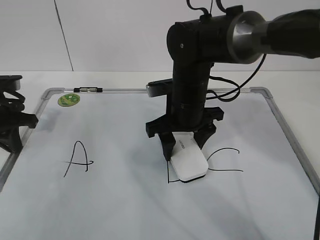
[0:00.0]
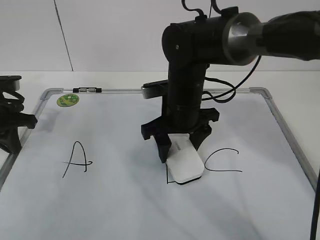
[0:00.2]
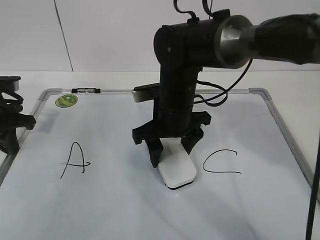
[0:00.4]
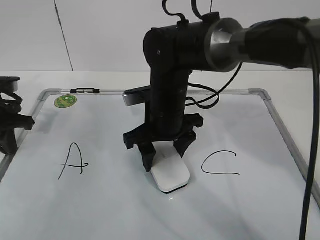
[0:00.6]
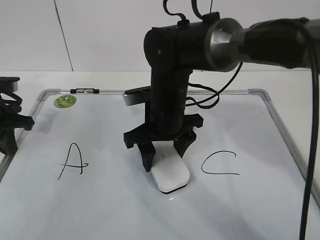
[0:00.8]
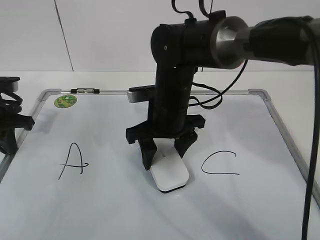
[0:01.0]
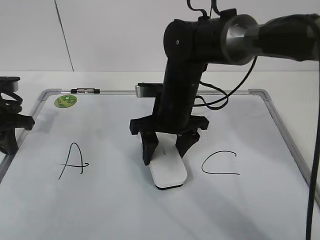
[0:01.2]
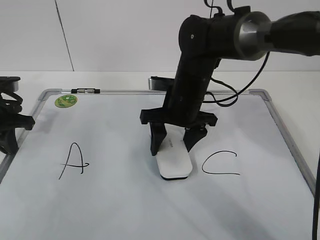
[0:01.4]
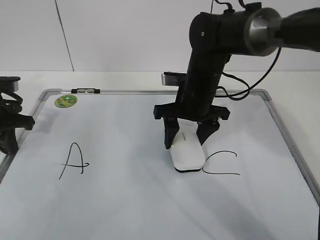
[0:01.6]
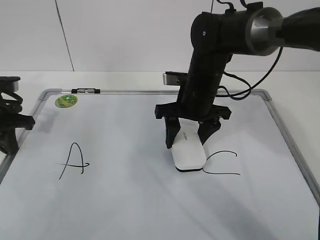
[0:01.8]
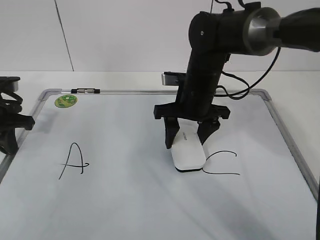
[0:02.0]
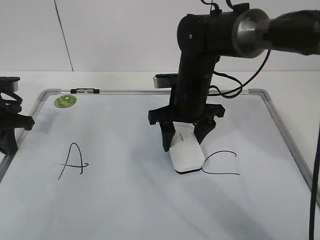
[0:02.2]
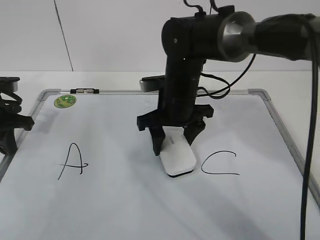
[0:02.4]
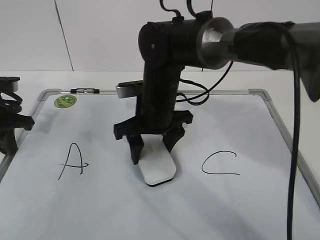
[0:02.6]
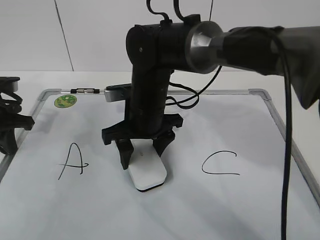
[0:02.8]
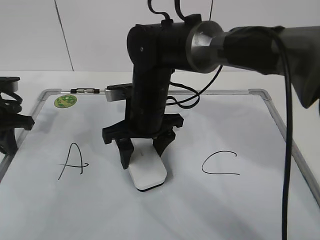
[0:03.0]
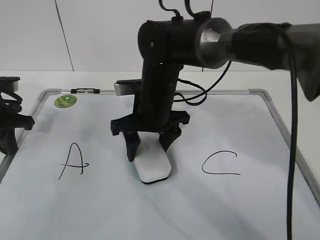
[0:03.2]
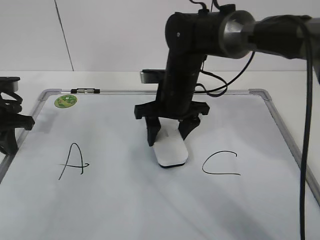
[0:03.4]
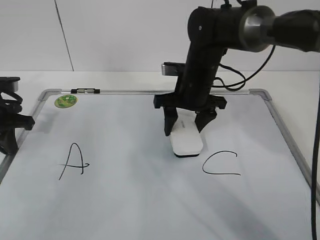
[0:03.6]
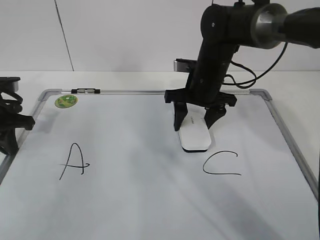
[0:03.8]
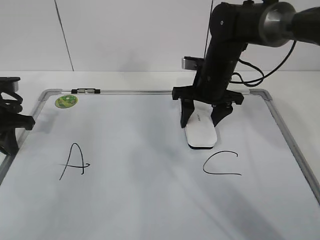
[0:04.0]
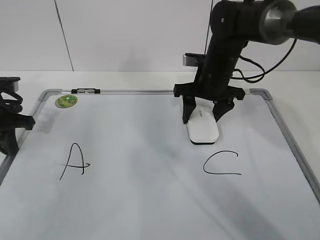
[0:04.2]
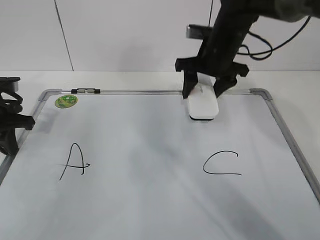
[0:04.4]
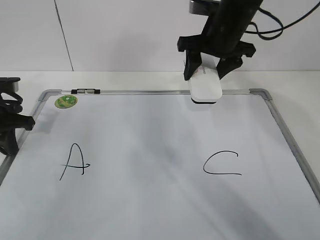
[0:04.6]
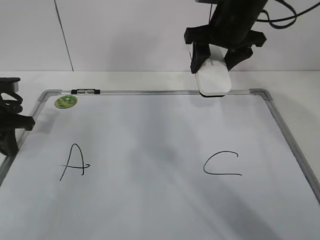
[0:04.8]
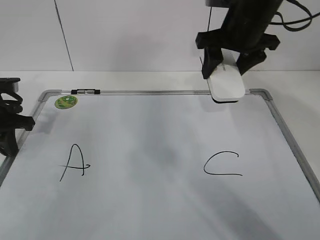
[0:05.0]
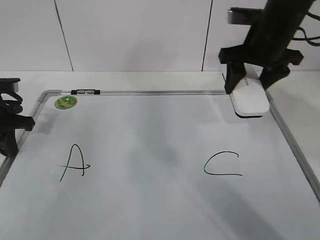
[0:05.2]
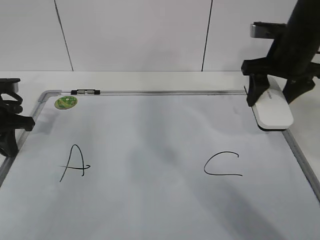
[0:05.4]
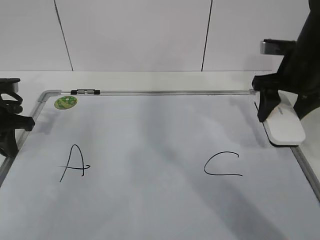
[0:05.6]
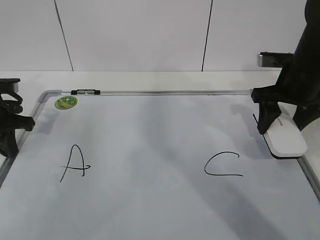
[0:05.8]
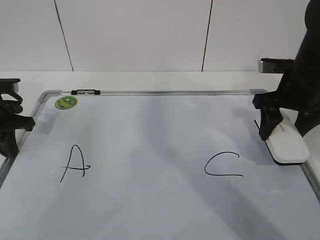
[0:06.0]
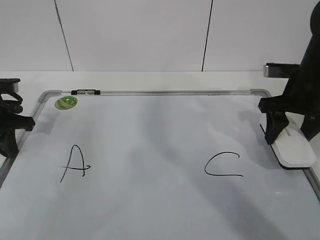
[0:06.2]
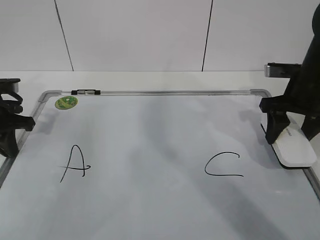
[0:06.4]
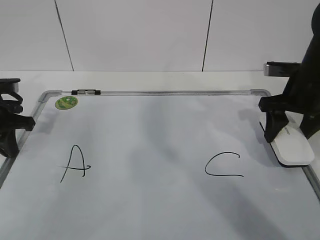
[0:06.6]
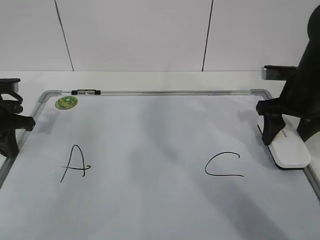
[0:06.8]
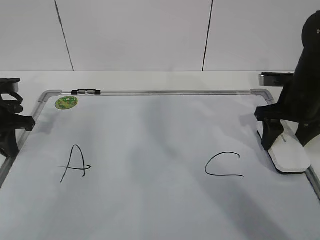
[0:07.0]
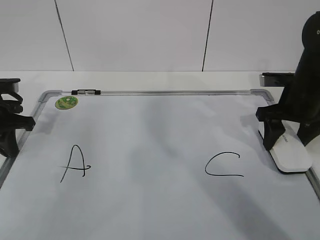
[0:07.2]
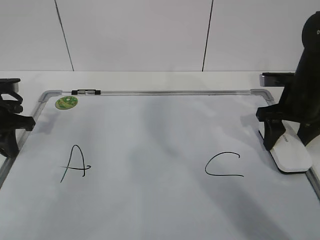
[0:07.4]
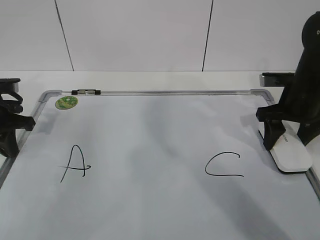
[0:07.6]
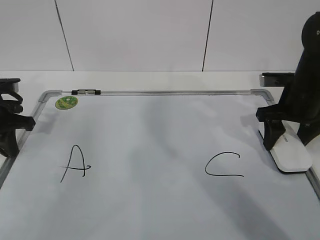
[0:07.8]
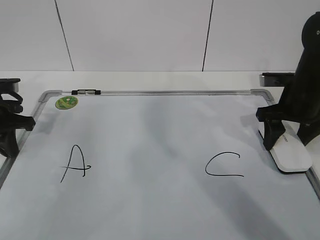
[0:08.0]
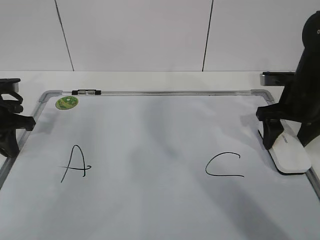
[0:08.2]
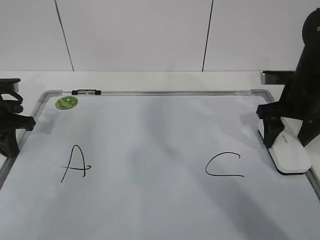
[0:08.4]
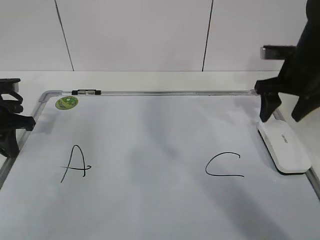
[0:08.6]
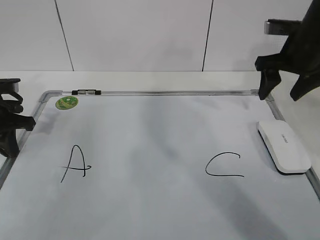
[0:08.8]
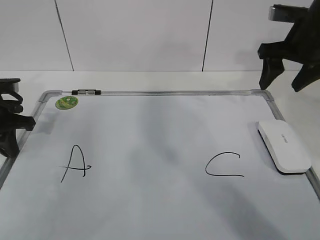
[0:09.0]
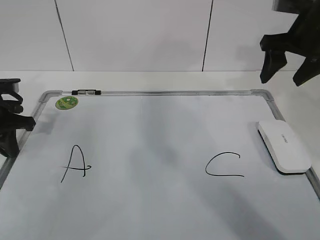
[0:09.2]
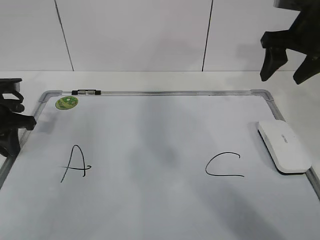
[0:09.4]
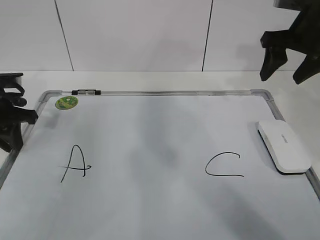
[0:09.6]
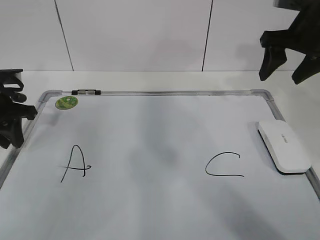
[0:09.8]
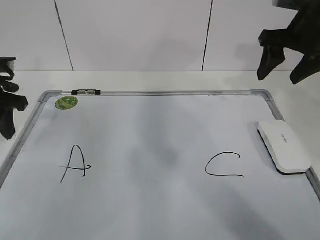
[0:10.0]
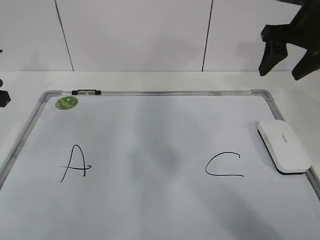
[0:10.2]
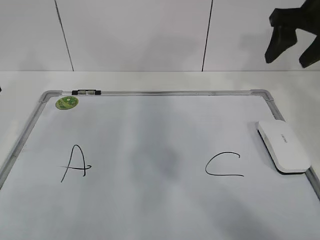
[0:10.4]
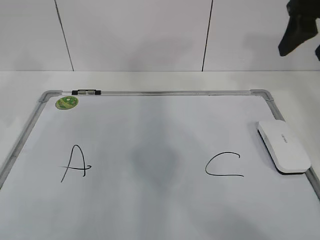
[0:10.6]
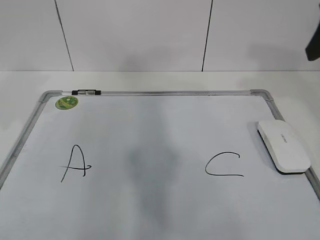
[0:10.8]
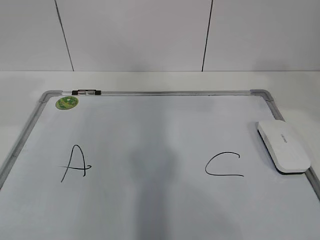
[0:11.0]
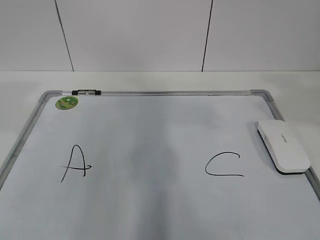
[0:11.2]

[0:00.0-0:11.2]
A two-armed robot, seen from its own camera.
Task of the whole recording: pick up the eraser on the blackboard and erase the letter "B".
Step, 0:01.4 to 0:04.8: Put down the eraser with your right hand.
0:00.0 to 0:01.6: There are only small adjustments of the grippers.
0:01.6 to 0:03.2: The right gripper moves to the left, some 10 cm.
0:03.2 to 0:04.8: The right gripper travels to the right, upward and forward by approximately 20 cm.
0:04.8 to 0:06.4: The right gripper shifts roughly 15 cm to the right, downward and backward.
0:06.4 to 0:08.0: The grippers make only small movements.
0:08.0 to 0:09.6: The right gripper shifts some 10 cm upward.
0:09.6 to 0:11.2: The right gripper is displaced backward and upward by some 25 cm; the left gripper shifts about 25 cm upward and backward, and opens up.

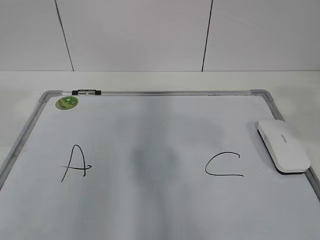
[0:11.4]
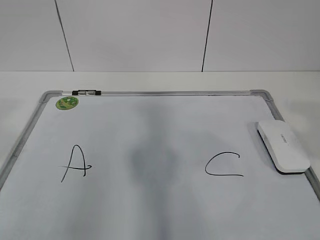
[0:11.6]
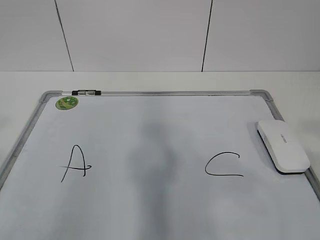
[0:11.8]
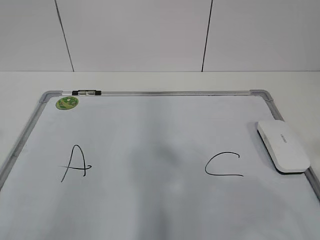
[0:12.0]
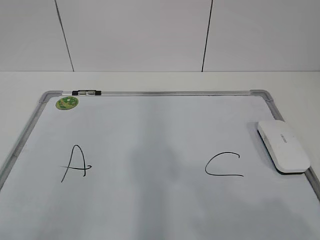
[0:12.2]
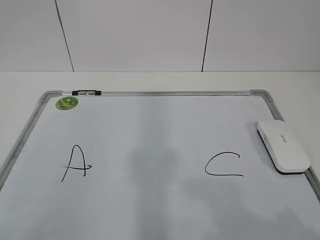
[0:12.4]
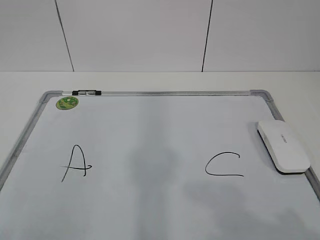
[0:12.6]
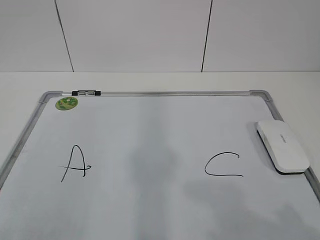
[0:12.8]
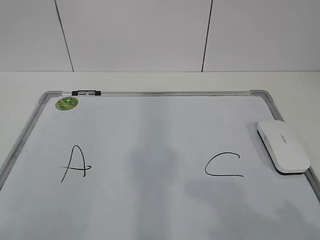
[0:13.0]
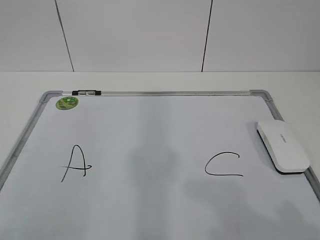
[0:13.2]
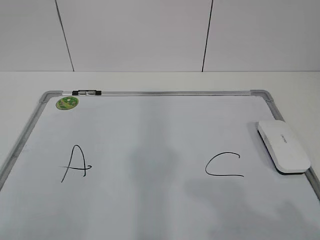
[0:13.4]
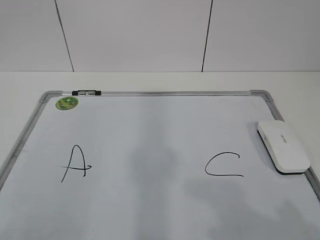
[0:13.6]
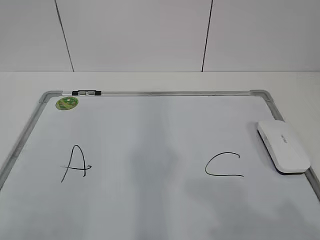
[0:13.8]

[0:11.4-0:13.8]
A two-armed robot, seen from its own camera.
Task of the whole recording: pick up the eraser on the blackboard and erase the letter "B".
0:11.4 to 0:12.6: The two grippers go some 20 cm backward and downward.
0:12.6 to 0:13.8: Both grippers stay about where they are.
